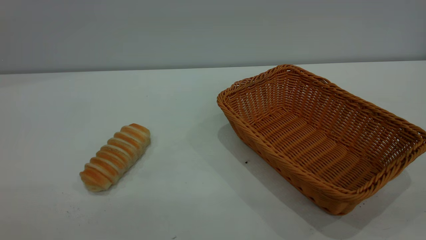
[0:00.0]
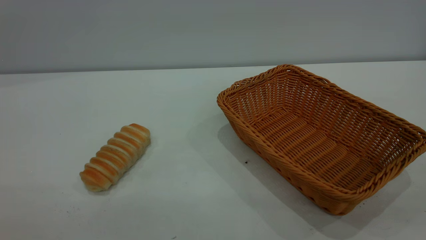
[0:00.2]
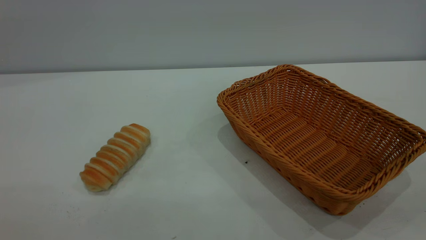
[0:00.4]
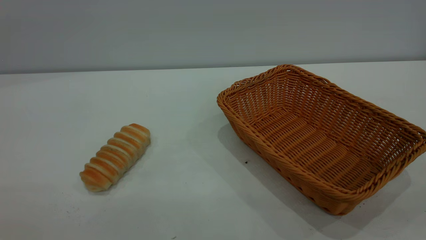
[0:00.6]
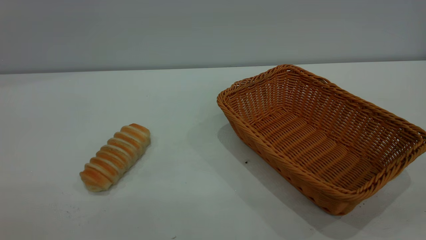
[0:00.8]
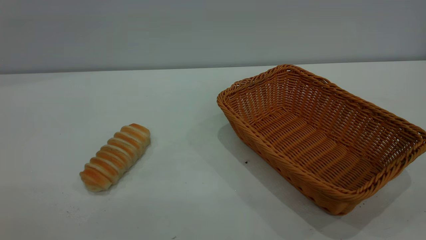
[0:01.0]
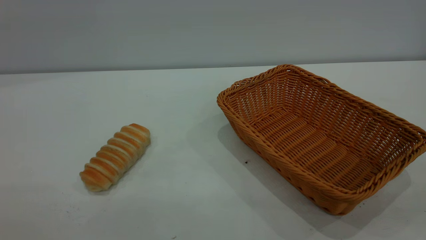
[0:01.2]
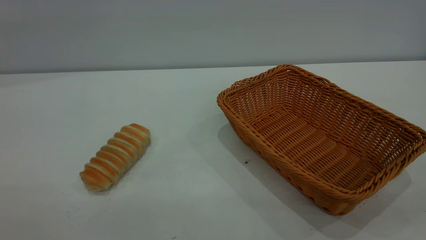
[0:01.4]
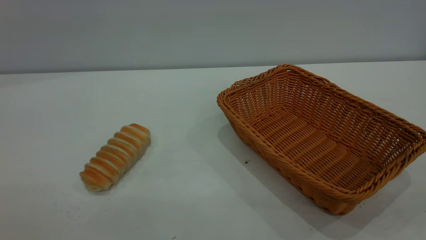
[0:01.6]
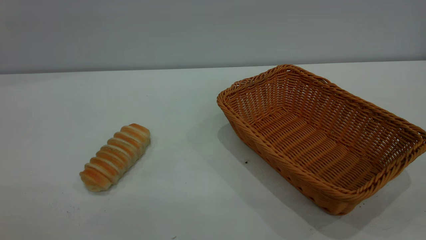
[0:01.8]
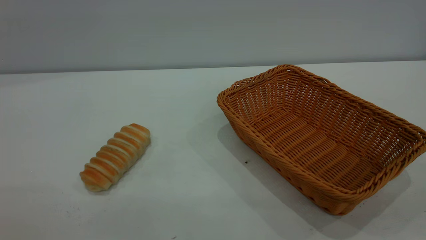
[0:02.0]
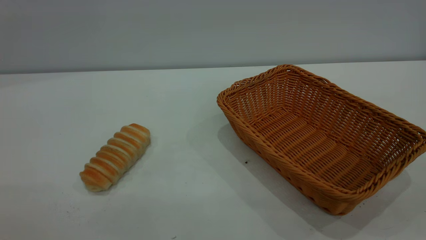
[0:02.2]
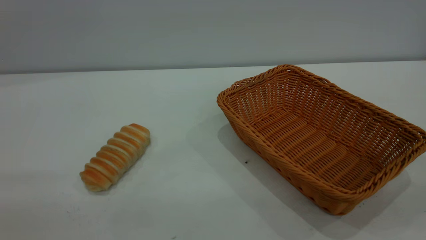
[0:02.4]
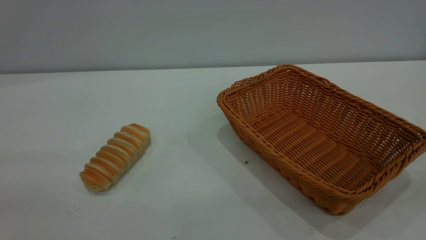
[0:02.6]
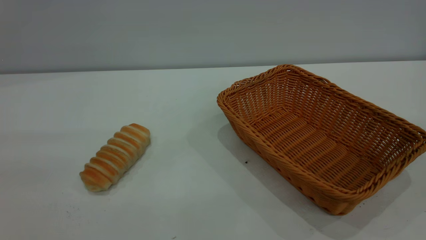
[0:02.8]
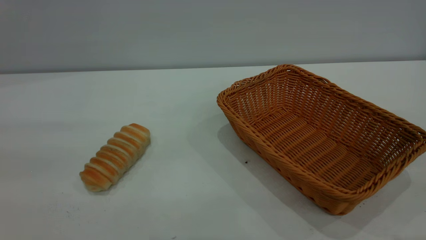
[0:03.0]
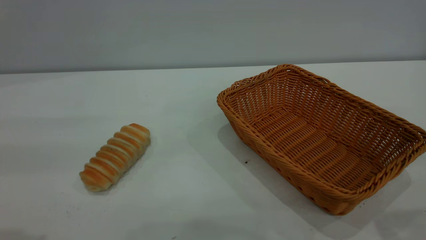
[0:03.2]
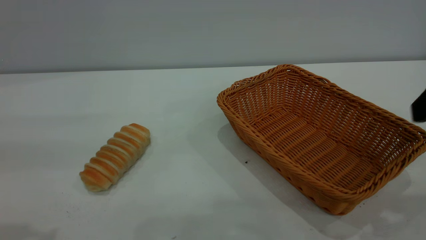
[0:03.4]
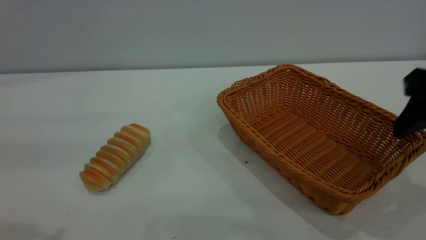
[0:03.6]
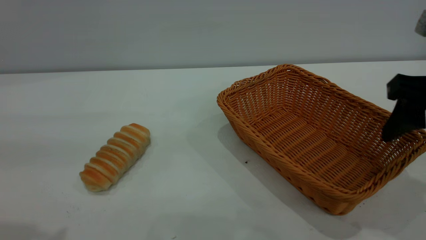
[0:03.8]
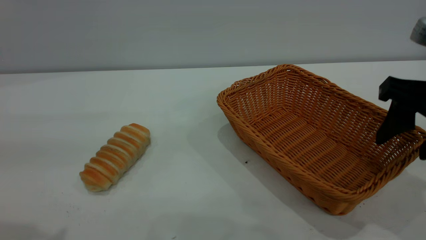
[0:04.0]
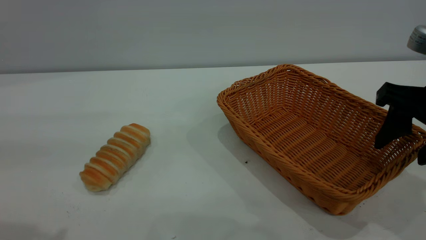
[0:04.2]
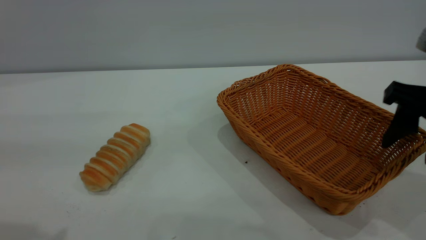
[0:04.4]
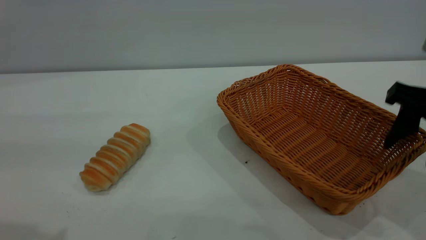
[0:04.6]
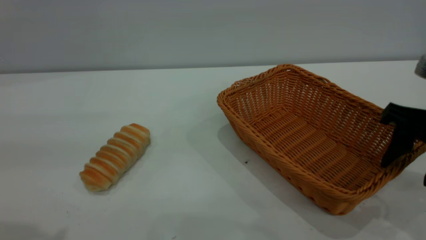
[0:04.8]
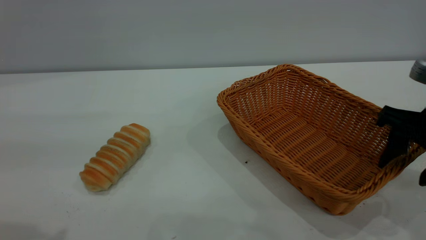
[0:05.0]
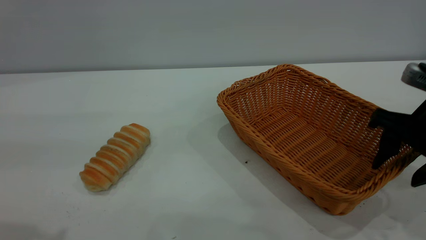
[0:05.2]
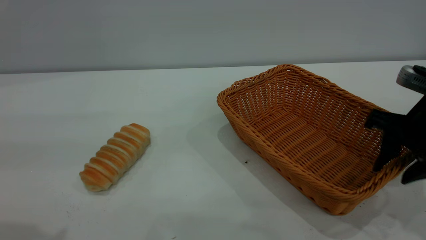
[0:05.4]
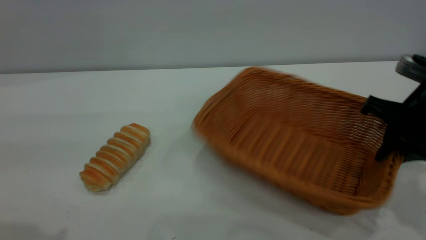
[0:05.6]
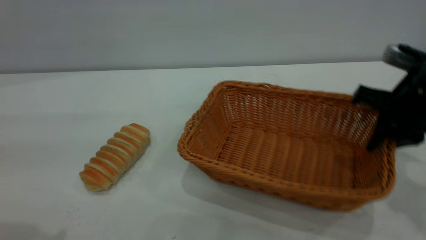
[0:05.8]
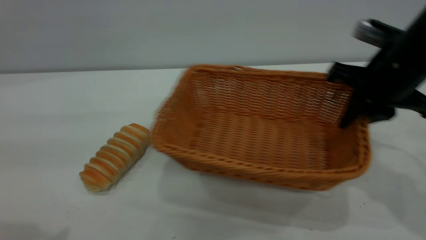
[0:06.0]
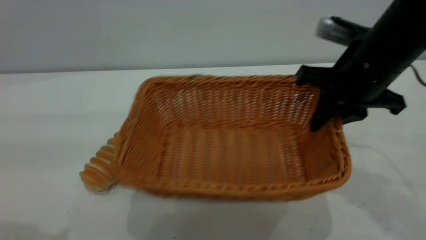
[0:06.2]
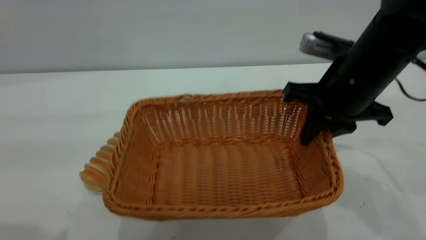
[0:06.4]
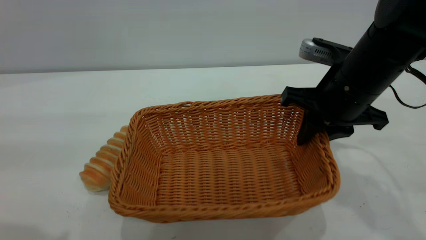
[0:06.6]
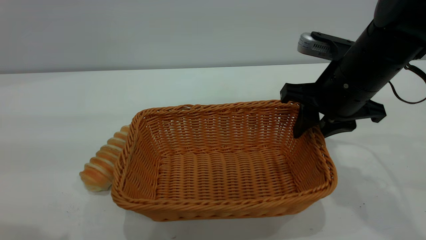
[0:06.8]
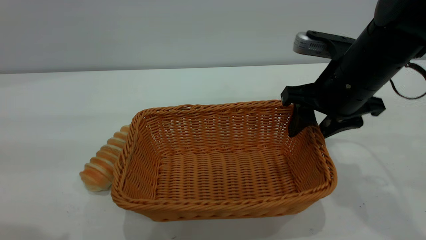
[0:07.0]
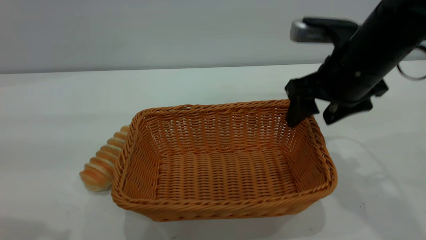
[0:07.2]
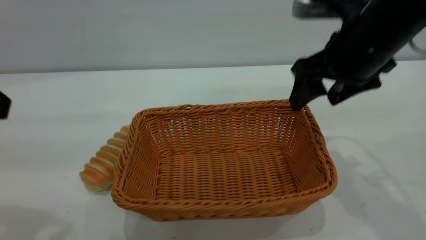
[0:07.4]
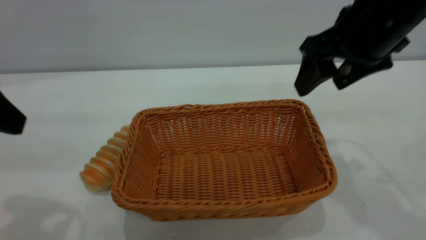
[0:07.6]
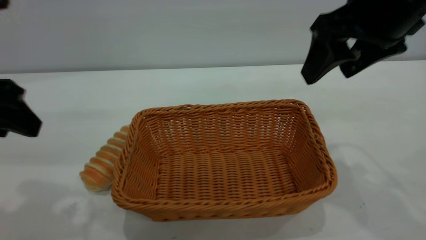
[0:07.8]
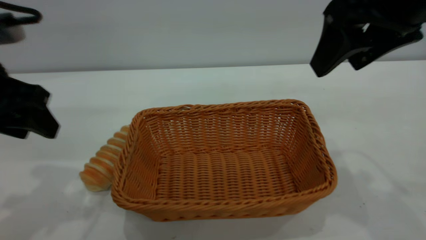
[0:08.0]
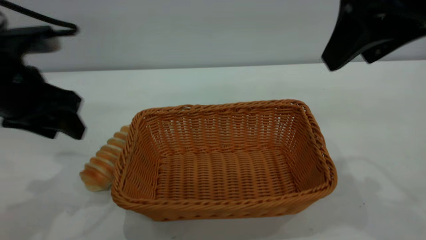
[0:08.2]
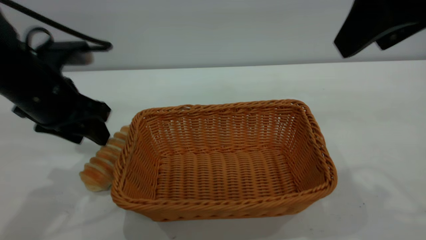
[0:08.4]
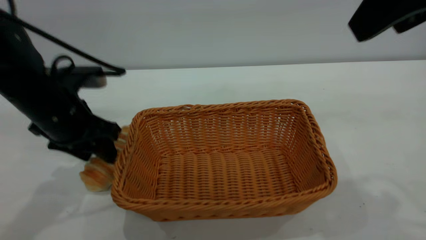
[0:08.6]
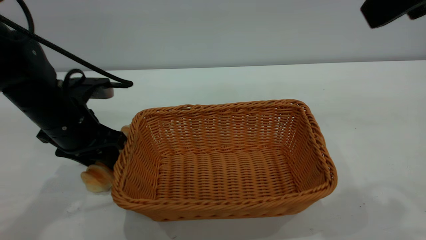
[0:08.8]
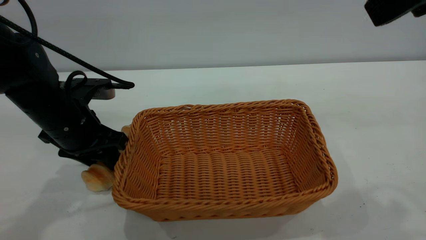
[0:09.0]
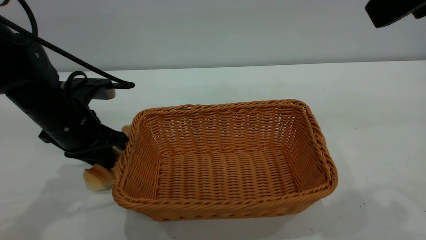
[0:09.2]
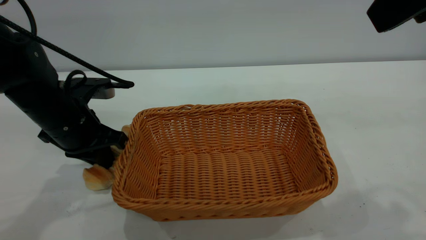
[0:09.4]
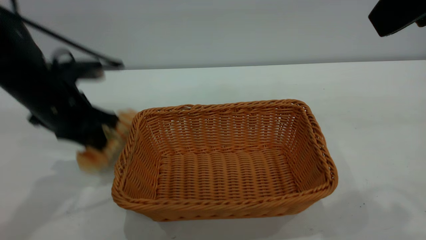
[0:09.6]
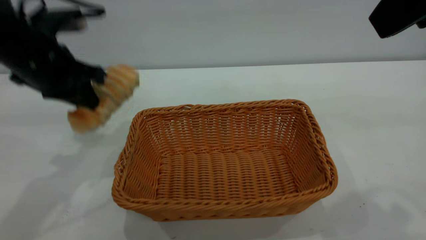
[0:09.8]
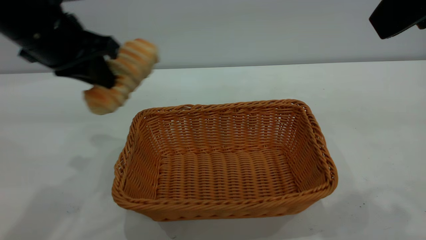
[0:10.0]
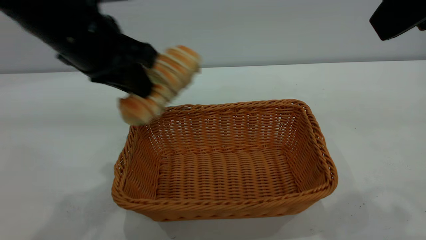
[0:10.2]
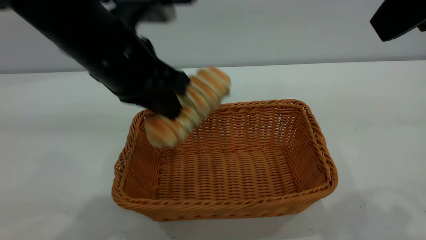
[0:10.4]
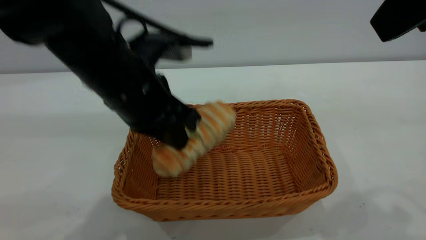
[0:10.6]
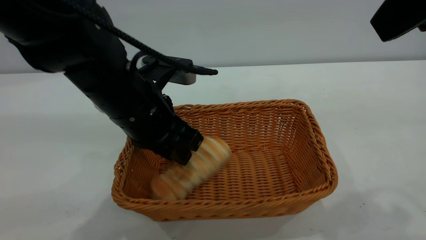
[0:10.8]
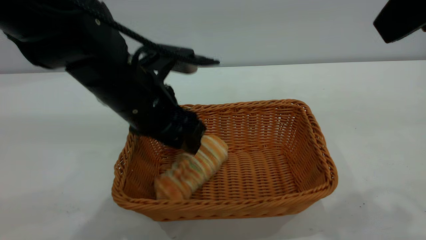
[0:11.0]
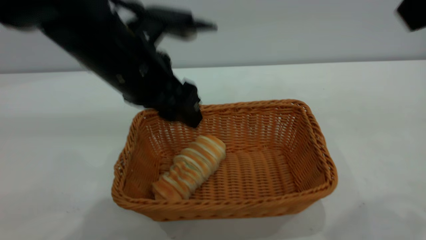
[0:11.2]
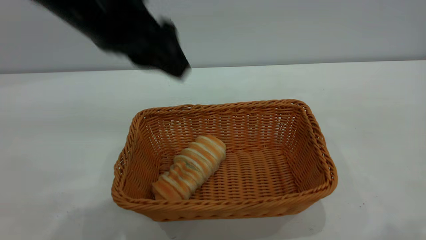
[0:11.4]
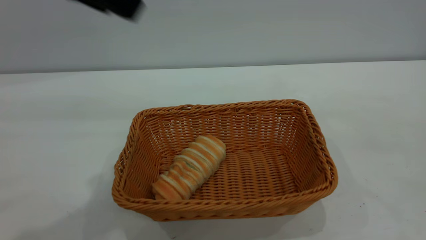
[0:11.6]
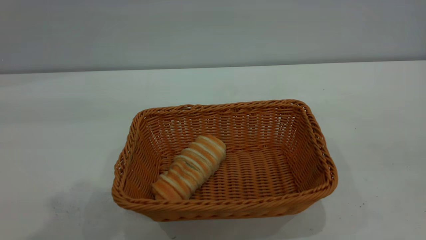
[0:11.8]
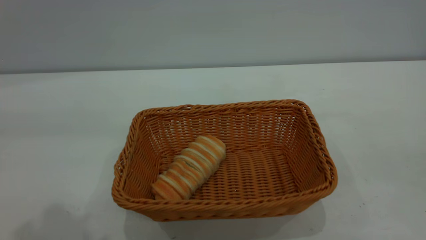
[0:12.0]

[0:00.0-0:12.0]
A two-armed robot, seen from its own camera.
Task of the whole recording: One hand grasps the yellow basket and places it in the middle of the table, while the other hand picks up the long bread and puts it into the yellow basket.
Step, 0:00.0 to 0:07.4: Move the basket to the center of view.
Step, 0:09.8 to 0:11.2: place the bread into the basket.
0:00.0 to 0:01.6: Both grippers stay put.
0:03.0 to 0:04.4: The right gripper heads downward and forward, covering about 15 cm.
0:04.4 to 0:06.0: The right gripper moves forward and to the left, about 10 cm, and closes.
0:06.0 to 0:07.6: The right gripper travels upward by roughly 5 cm, and opens; the left gripper heads downward, covering some 5 cm.
0:07.6 to 0:09.0: The right gripper goes about 15 cm upward and backward. The left gripper travels downward and forward by roughly 20 cm.
0:09.0 to 0:10.4: The left gripper shifts about 15 cm upward and to the right, and closes up.
0:10.4 to 0:12.0: The right gripper heads backward, upward and to the right, covering some 20 cm. Meanwhile the left gripper goes about 25 cm upward, backward and to the left, and opens its fingers.

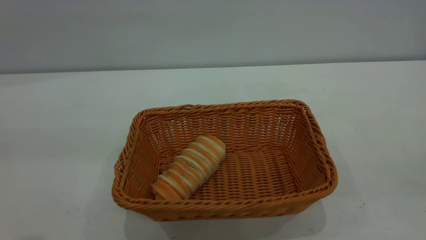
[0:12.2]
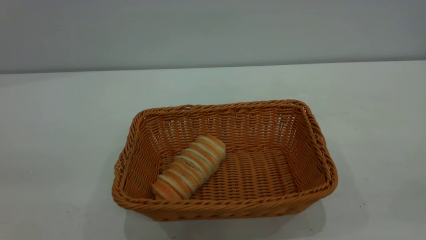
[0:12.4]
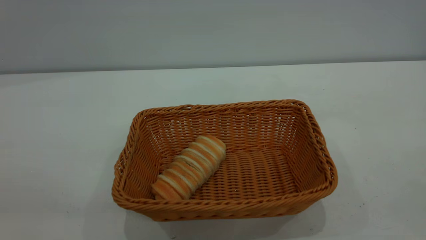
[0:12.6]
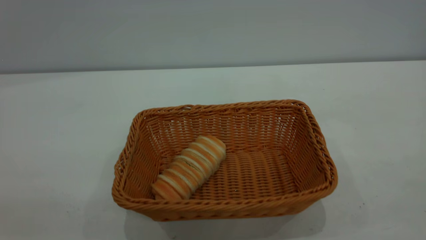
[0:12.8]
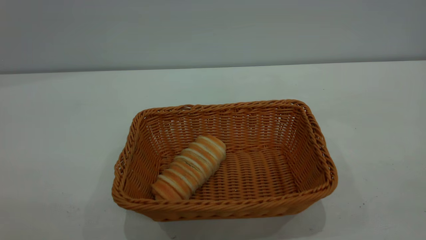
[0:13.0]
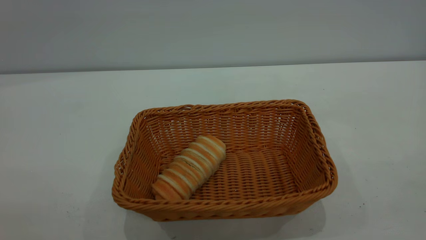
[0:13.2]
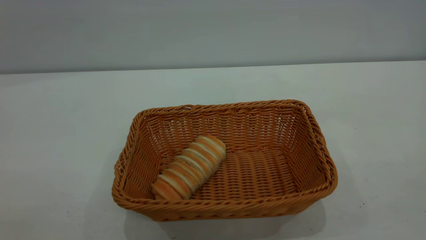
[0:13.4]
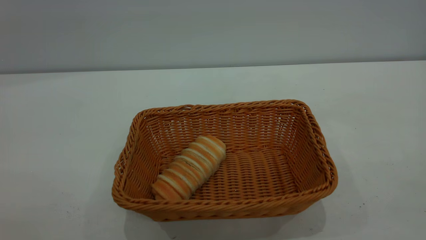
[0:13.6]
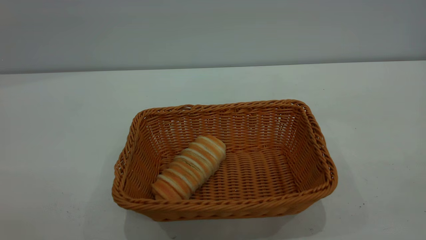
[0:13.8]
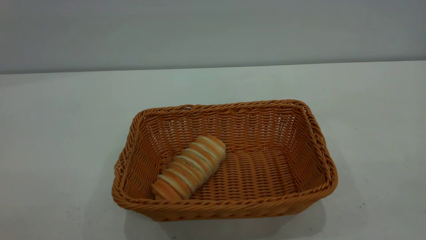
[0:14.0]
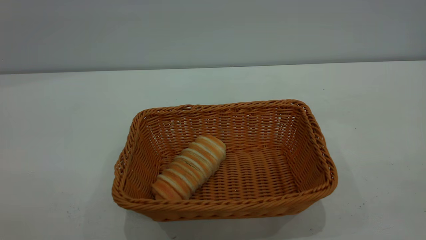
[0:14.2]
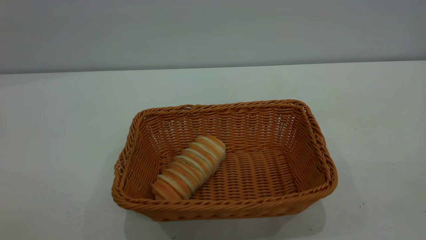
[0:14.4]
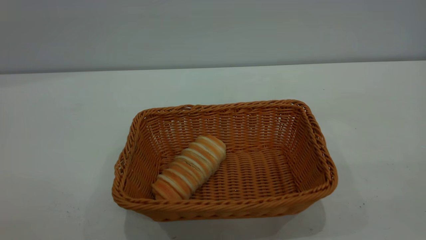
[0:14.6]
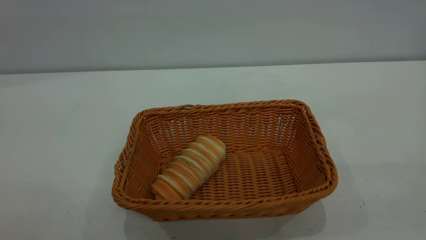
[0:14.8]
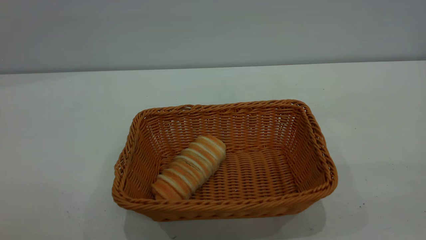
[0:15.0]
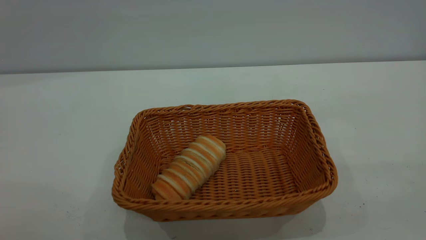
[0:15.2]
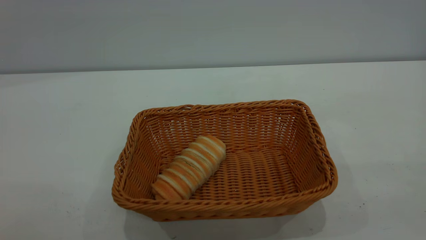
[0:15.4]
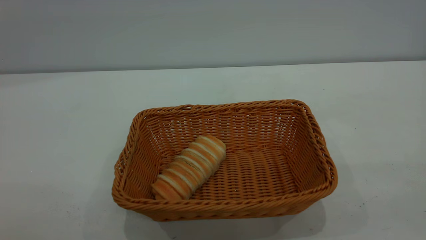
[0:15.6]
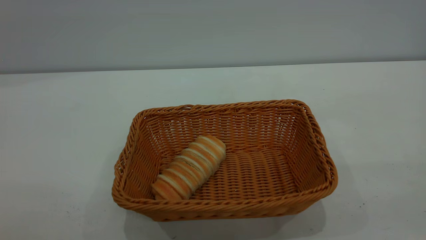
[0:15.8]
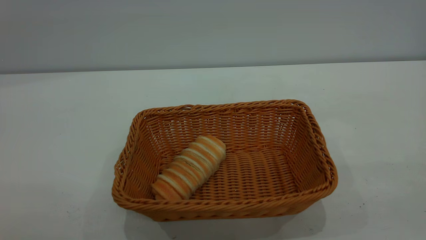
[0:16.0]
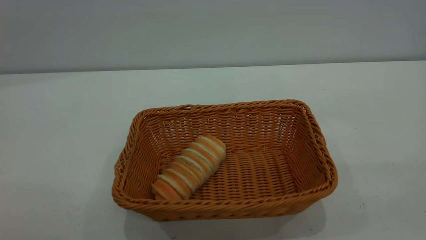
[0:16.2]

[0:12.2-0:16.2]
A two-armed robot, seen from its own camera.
Task of the whole recording: One hand grasps the yellow basket and places it in the middle of the table, while the other hand picks up the long bread and puts it into the yellow basket.
0:14.8 to 0:16.2: Both grippers stay put.
